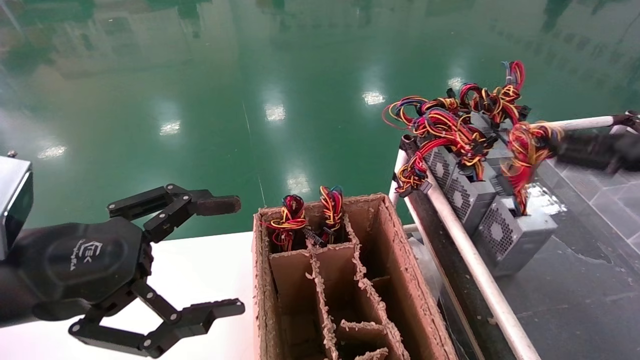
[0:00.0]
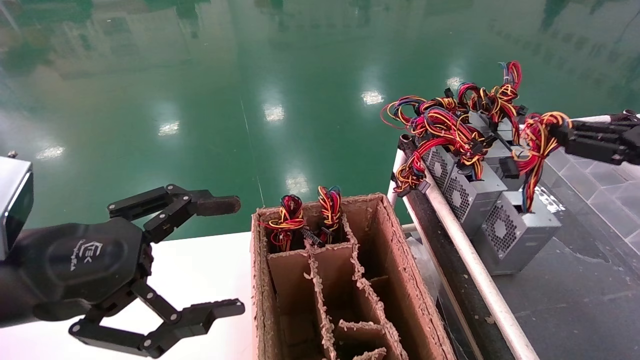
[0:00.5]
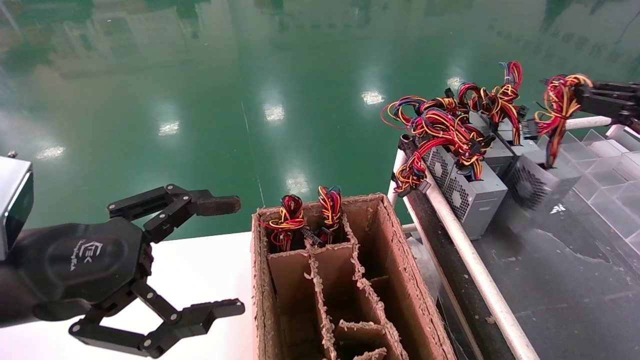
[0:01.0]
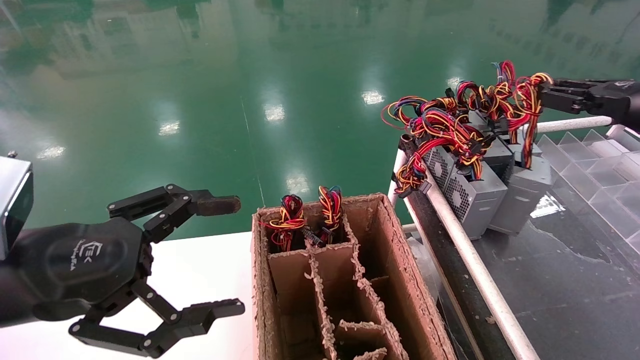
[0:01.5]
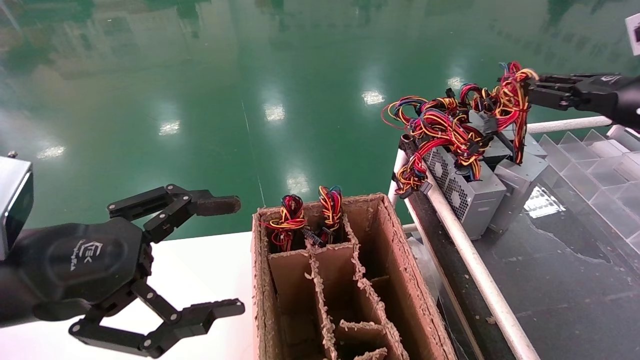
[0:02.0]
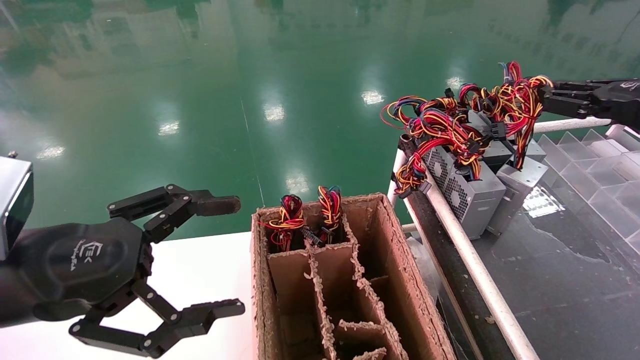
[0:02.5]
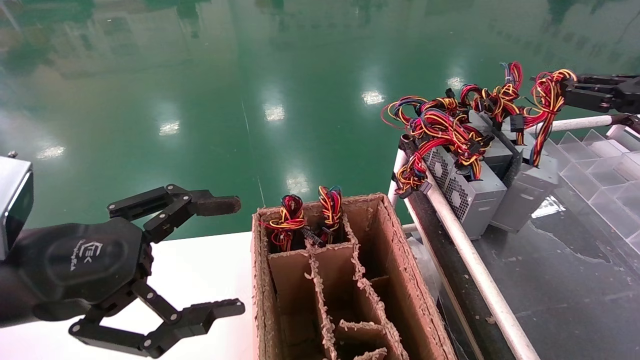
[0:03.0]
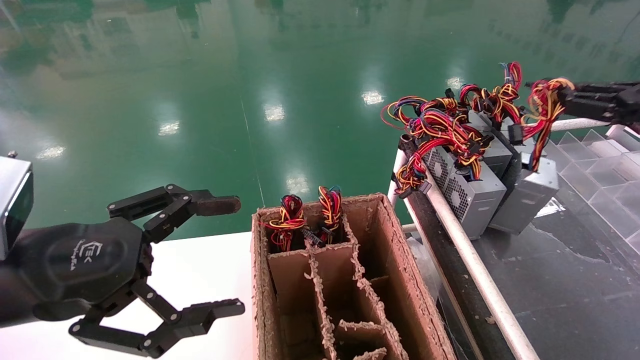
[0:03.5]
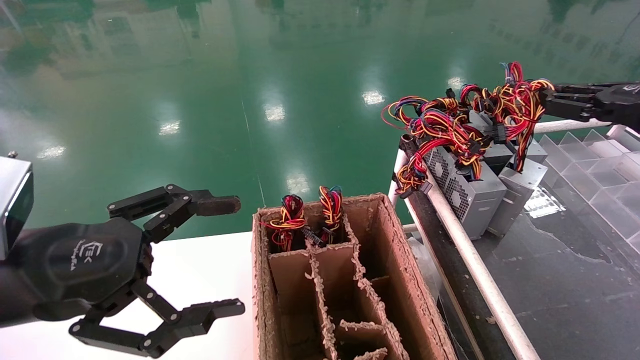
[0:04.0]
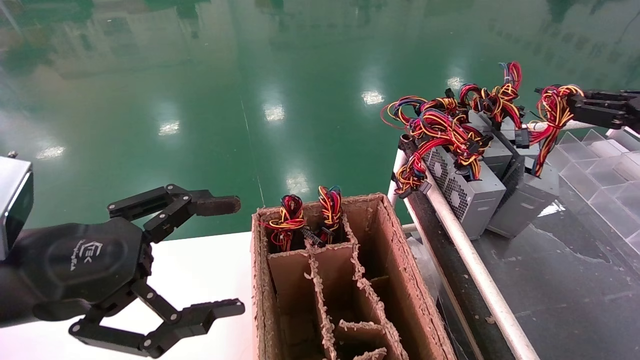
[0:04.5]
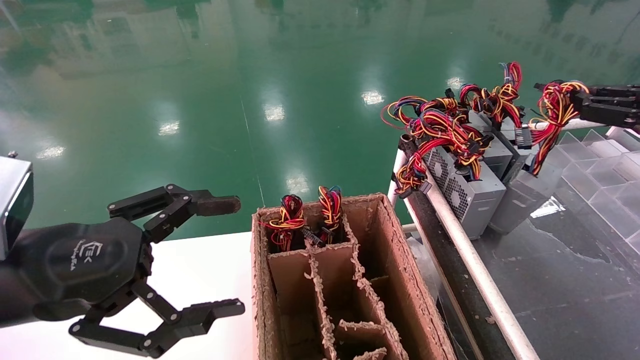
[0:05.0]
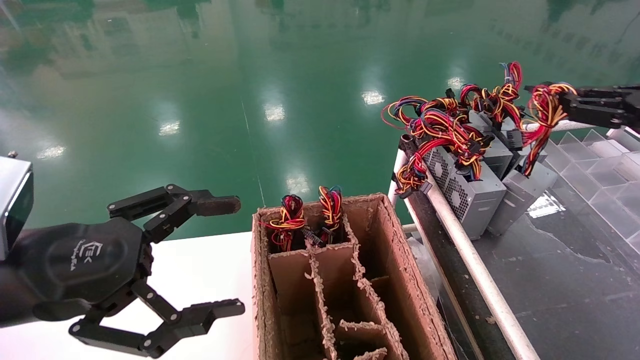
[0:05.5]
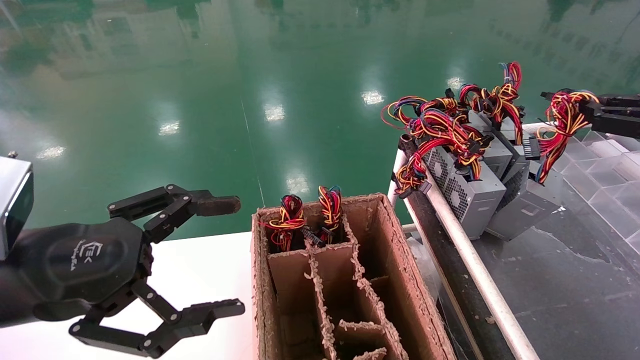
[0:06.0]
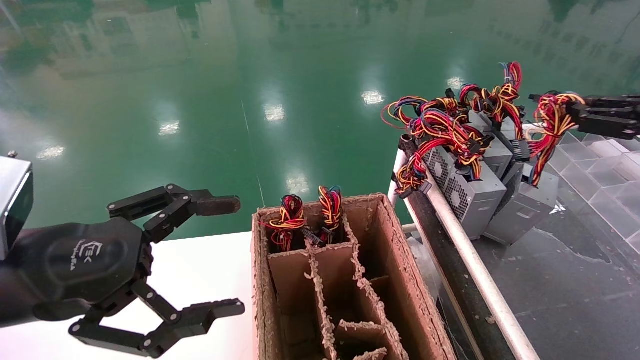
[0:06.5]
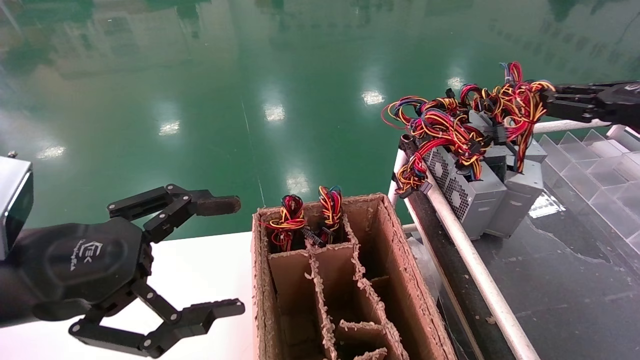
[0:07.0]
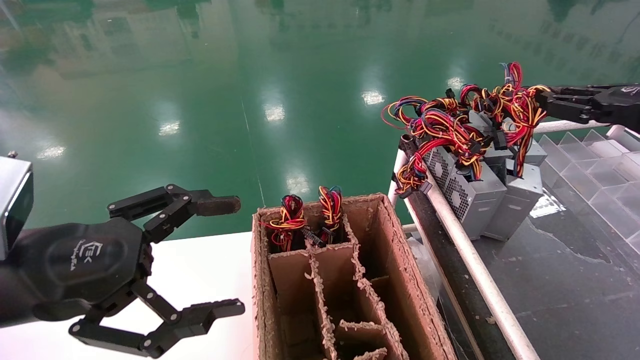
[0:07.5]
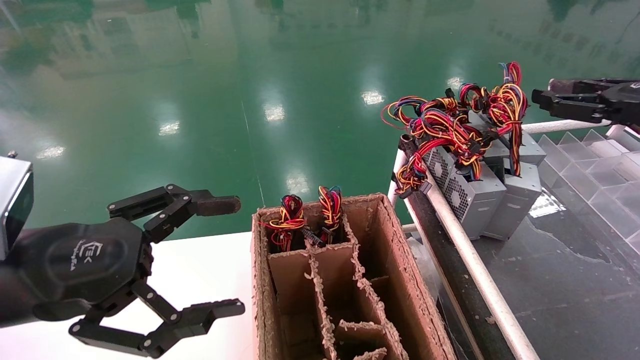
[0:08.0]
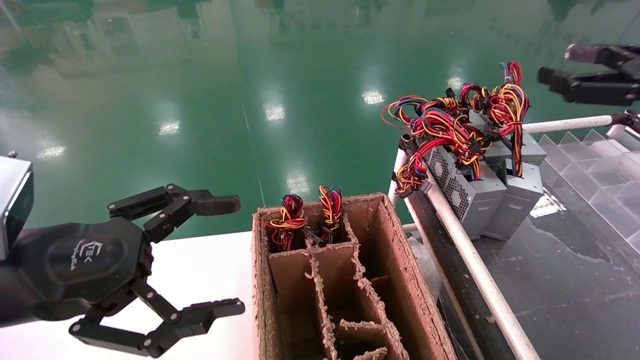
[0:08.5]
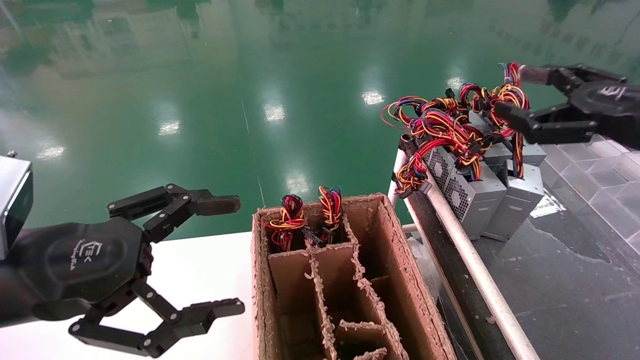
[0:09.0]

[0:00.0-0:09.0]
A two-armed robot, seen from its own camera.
Step, 0:00.0 to 0:07.5: Place the power supply on the operating table.
0:00.0 to 0:02.0: The right gripper is displaced forward and upward by about 10 cm.
0:02.0 to 0:04.5: The right gripper moves approximately 5 cm.
0:04.5 to 0:07.0: The grippers make only small movements.
0:07.0 to 0:09.0: The right gripper goes roughly 5 cm to the left, and opens up.
